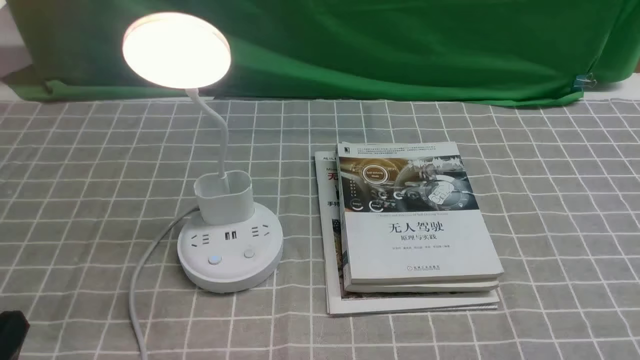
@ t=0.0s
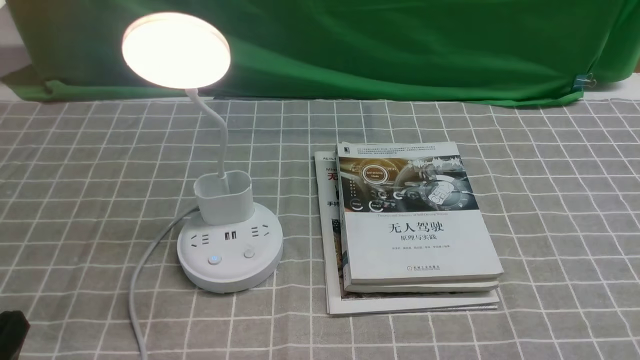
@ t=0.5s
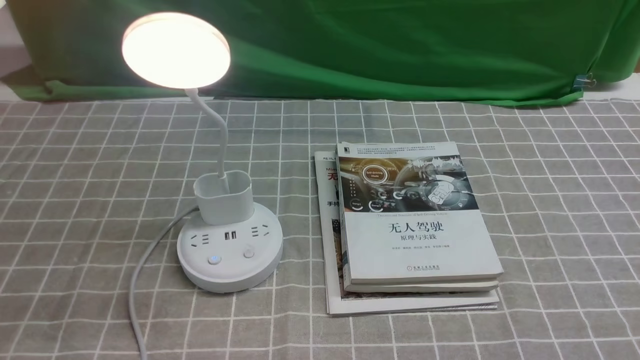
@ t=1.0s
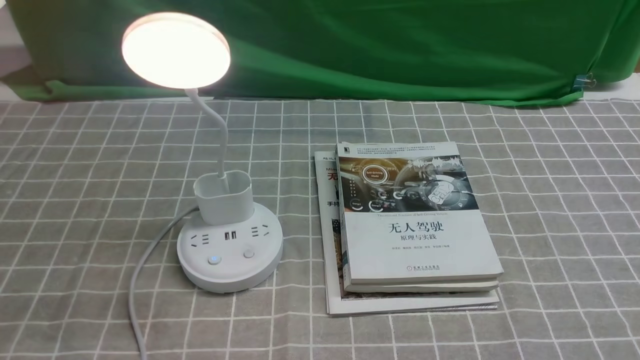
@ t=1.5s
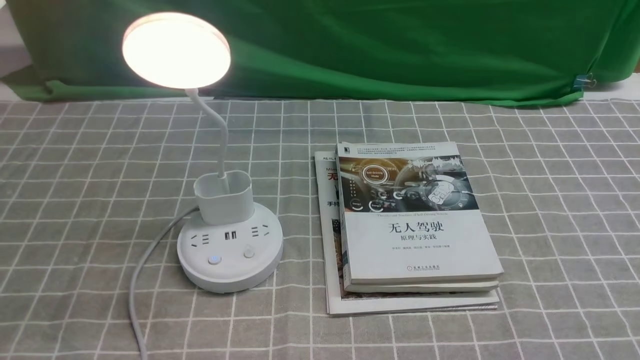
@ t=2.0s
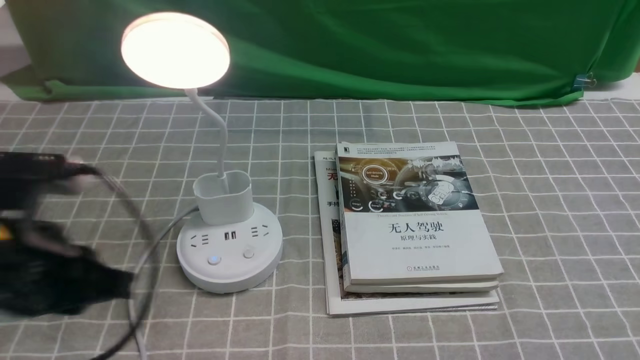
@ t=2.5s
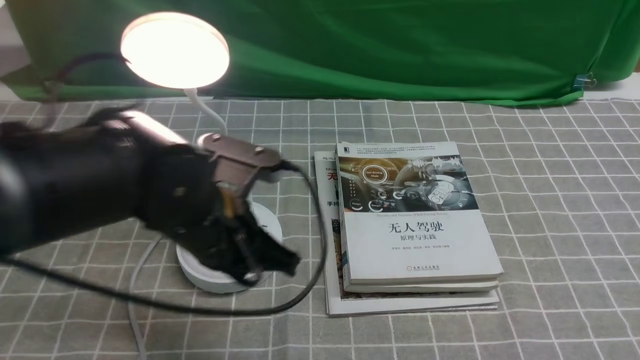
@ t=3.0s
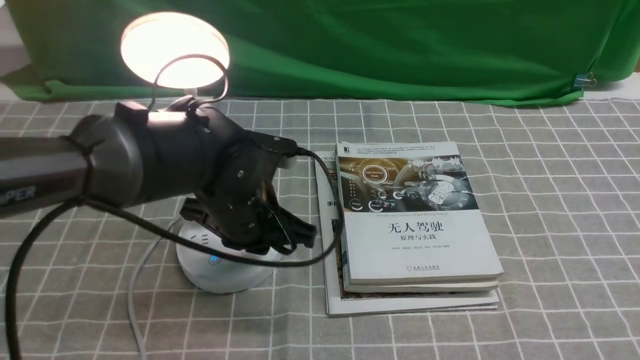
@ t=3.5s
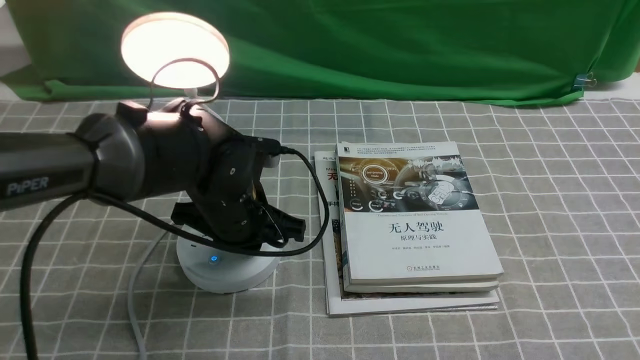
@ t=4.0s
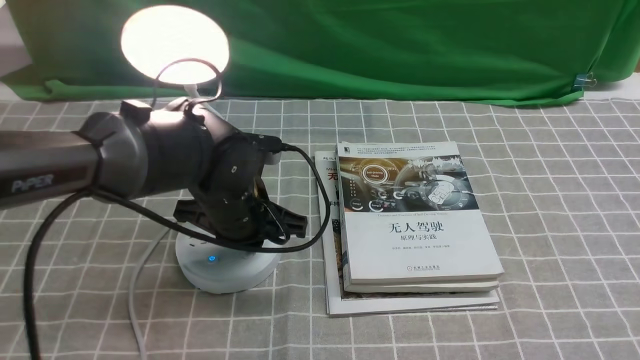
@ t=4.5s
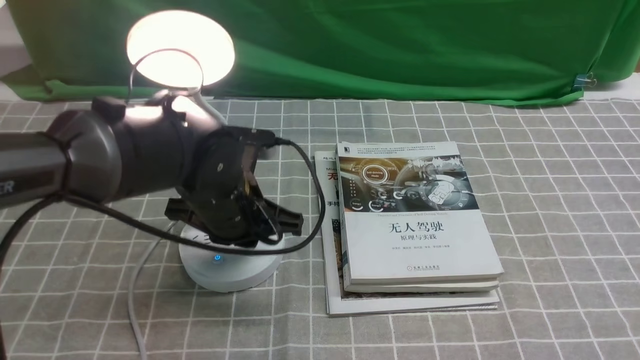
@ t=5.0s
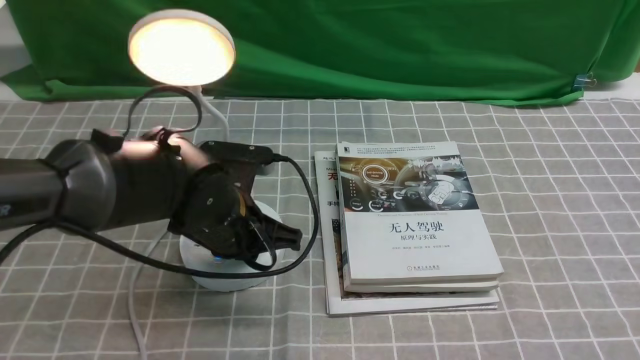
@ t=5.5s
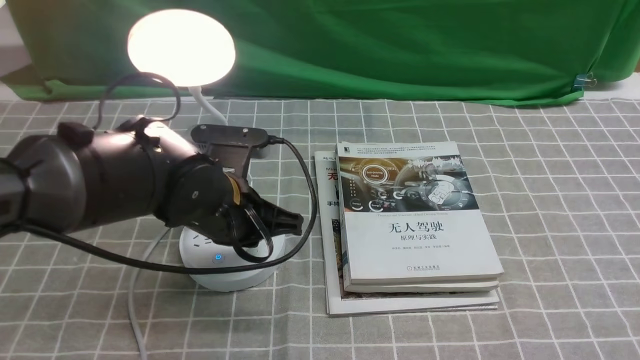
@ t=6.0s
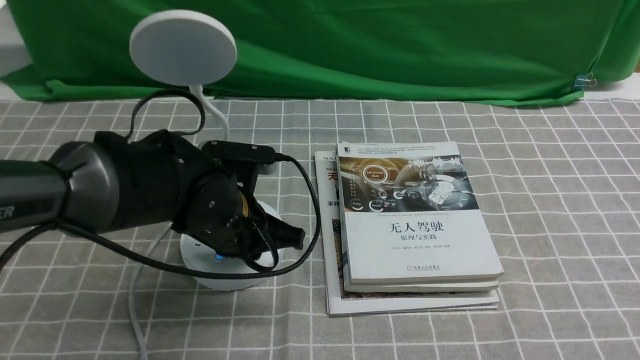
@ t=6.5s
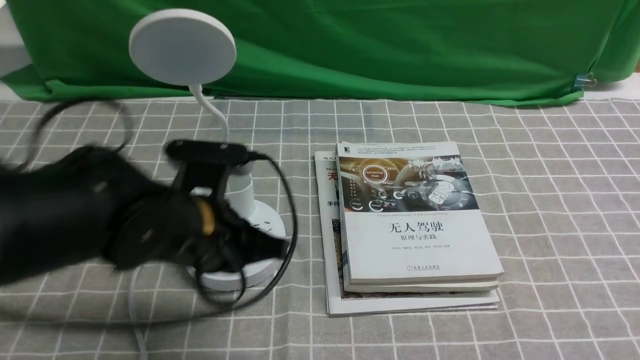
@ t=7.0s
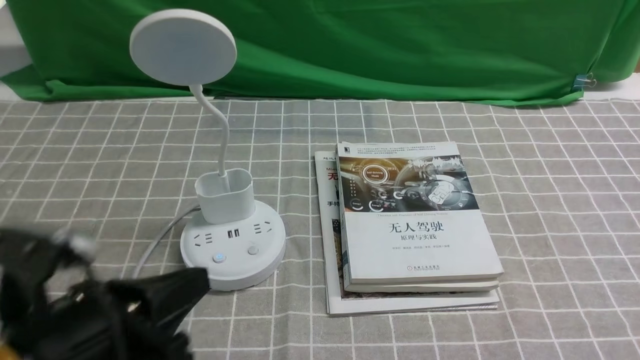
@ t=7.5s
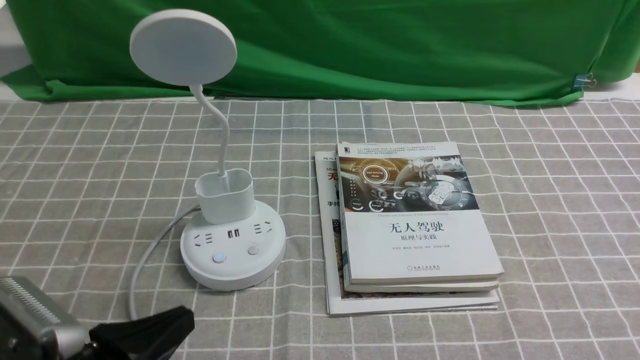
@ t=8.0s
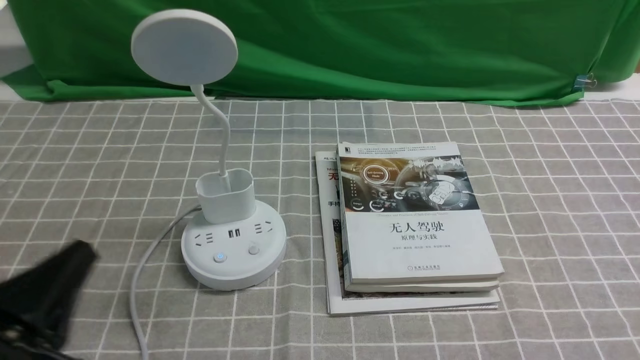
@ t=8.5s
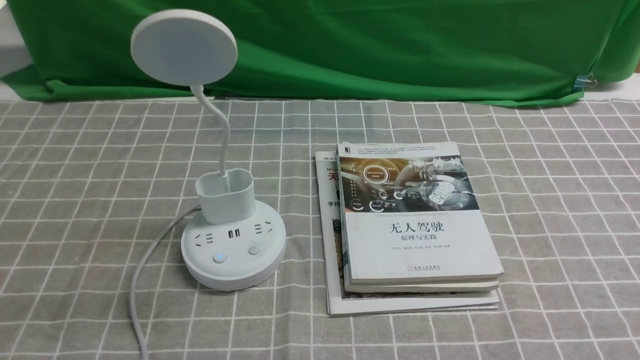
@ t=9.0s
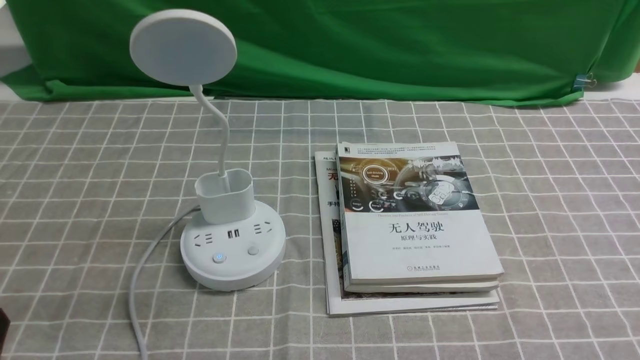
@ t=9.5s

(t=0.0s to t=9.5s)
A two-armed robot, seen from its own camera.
Task of the whole recording: turn off the desk lamp on the grey coffee tablecloth by hand.
Step, t=0.0s - t=6.5s: use the left arm to press the button switch on the lamp holder.
t=2.0s - t=4.0s: The left gripper goes approximately 30 cm forward and to the right, and closes its fingers.
t=5.5s - t=7.5s: The left gripper travels backward and to the left by about 20 cm.
t=7.5s - t=9.5s: The left gripper heads to the left and backward, covering about 15 cm, and opens up.

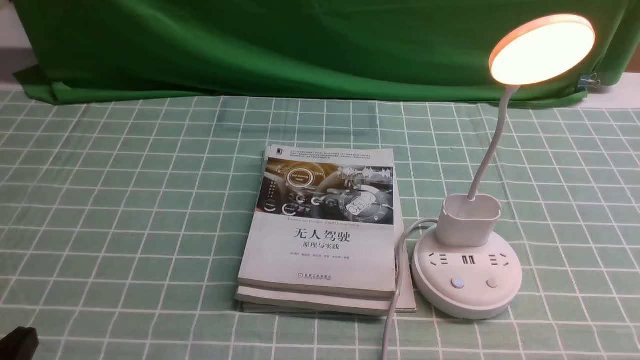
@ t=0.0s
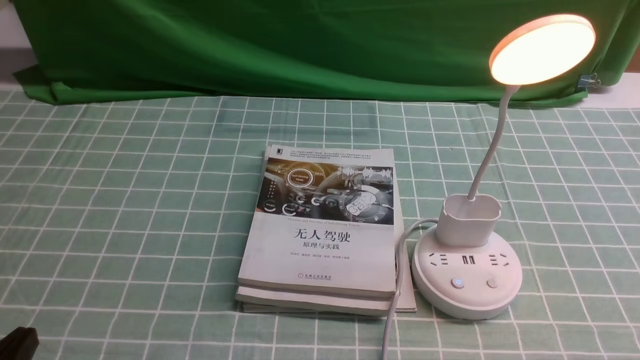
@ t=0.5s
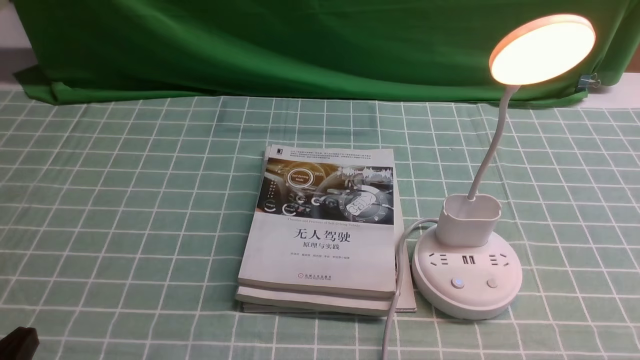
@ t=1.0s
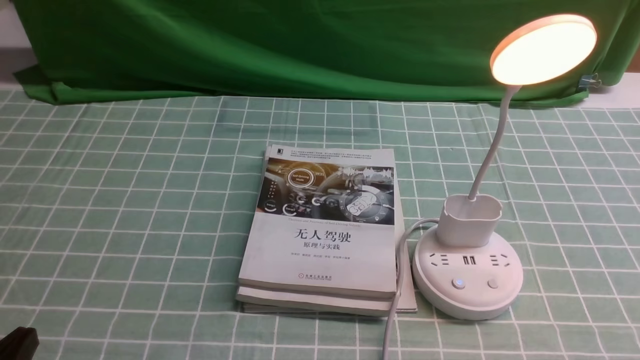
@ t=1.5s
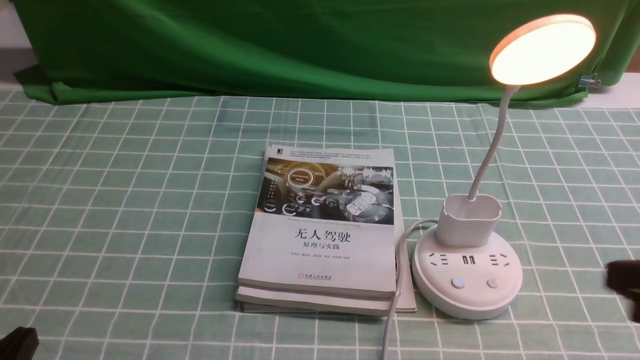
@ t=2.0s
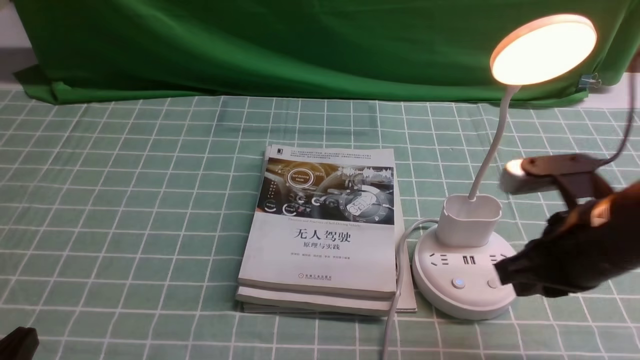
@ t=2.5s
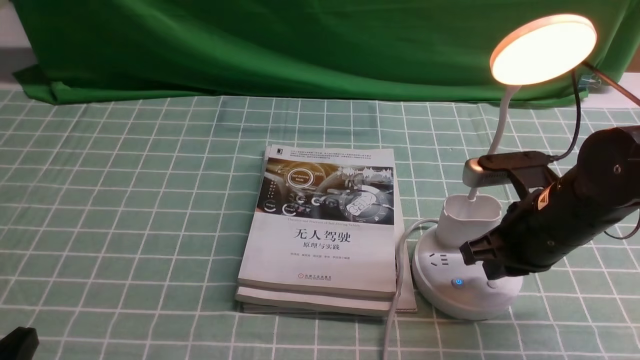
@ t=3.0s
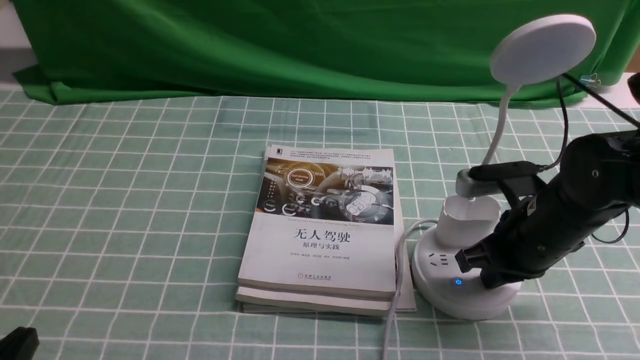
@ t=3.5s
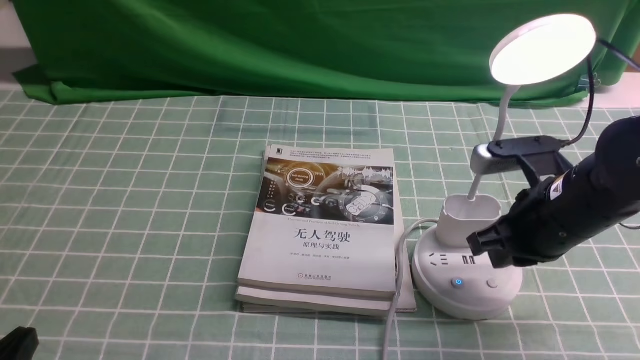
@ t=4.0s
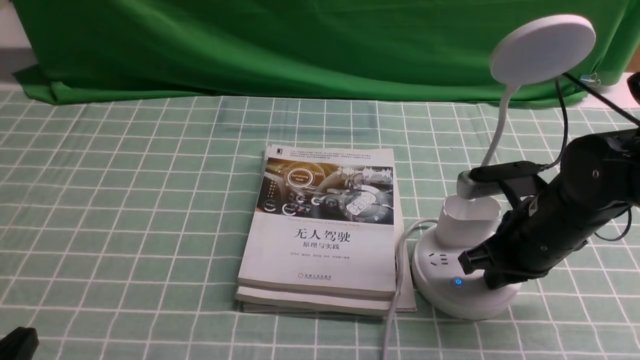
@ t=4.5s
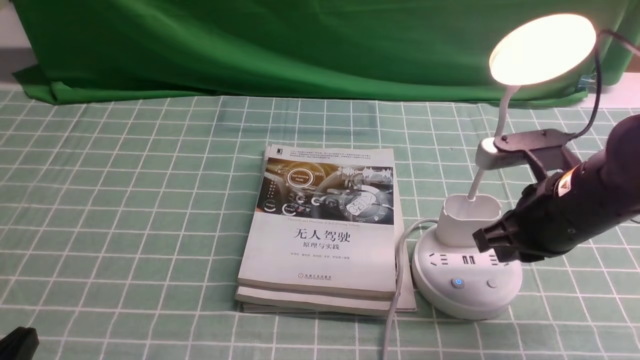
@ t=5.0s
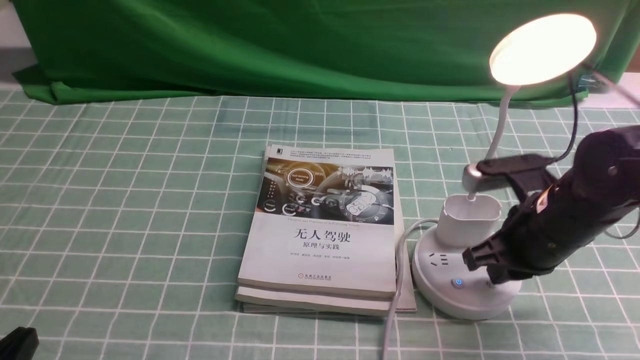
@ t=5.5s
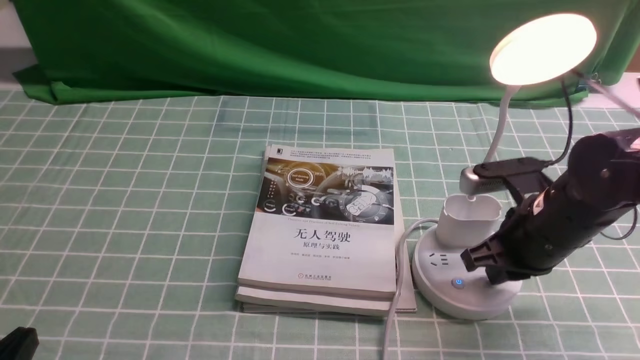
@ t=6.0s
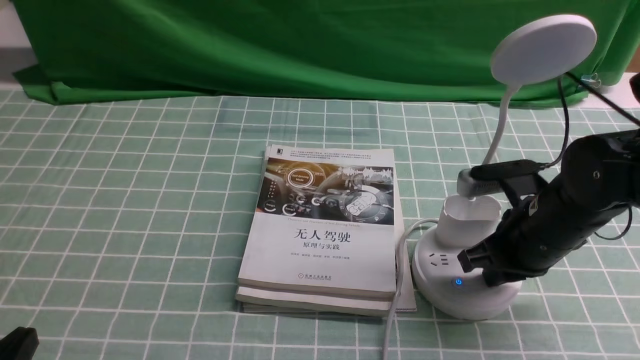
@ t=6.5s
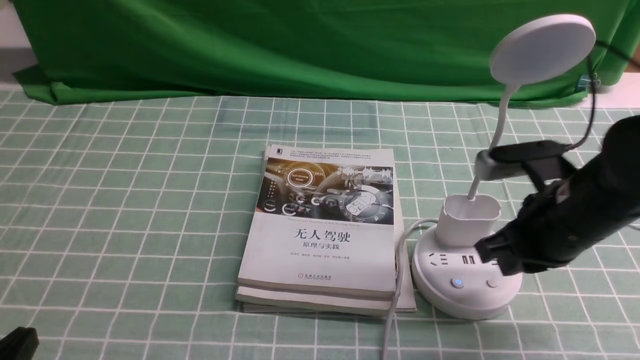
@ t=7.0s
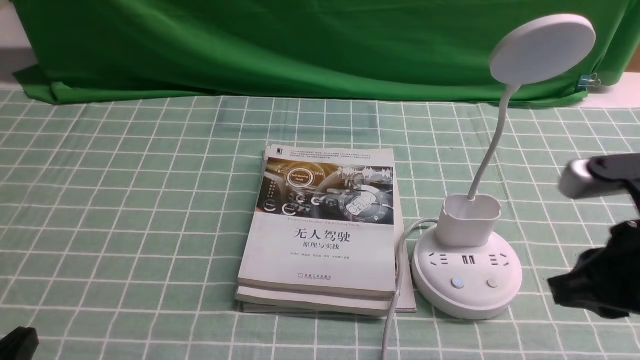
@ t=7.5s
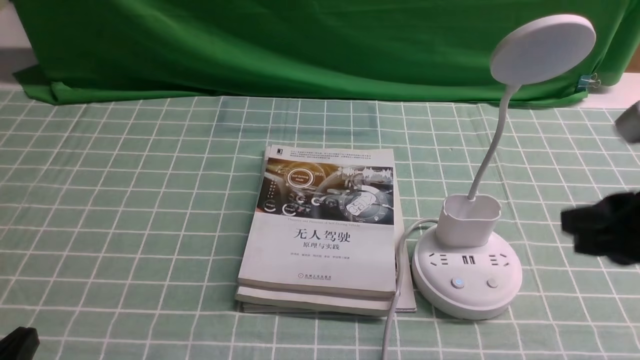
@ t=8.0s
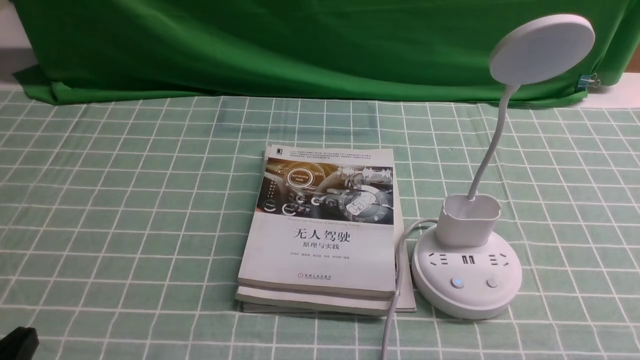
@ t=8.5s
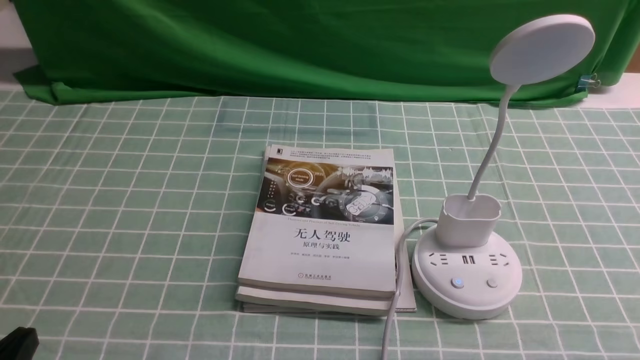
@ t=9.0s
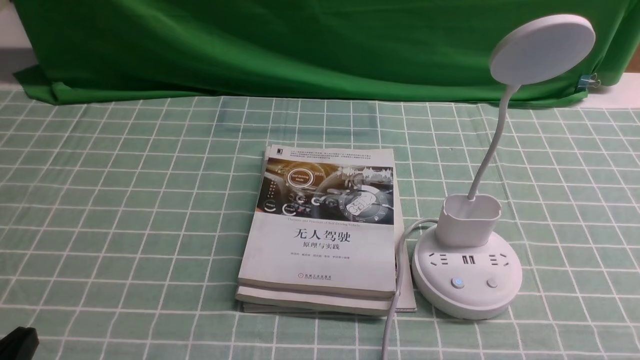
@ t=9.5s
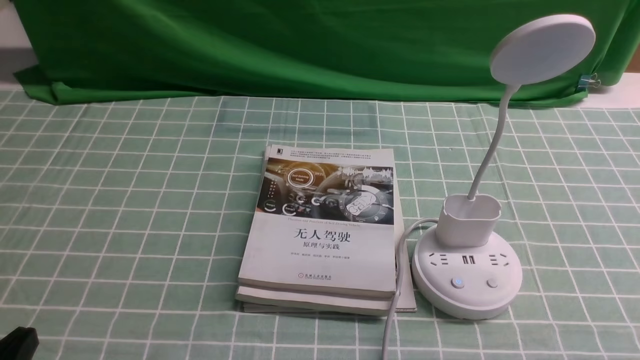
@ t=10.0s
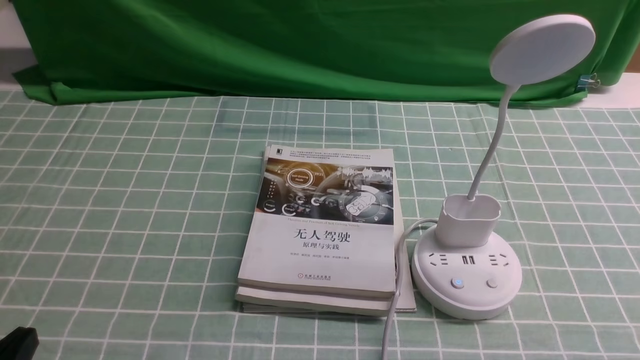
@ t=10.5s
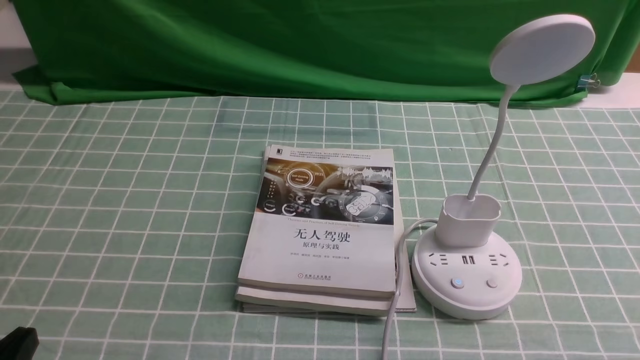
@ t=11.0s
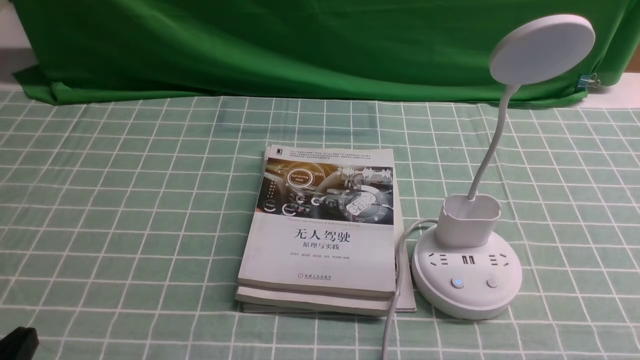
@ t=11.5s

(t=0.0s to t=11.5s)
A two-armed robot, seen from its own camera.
Task of the whole recording: turn off the desk lamp on the blue coffee tablecloth by hand.
Step, t=0.0s - t=6.5s: use the right arm to press the button switch on the lamp holder.
t=0.0s - t=2.0s: The right gripper shifts some 15 cm upward and forward, and closes its fingers.
t=2.0s - t=4.0s: The right gripper shifts roughly 20 cm forward, downward and to the left.
t=4.0s - t=6.0s: There are only small adjustments of the grippers.
t=6.0s - t=7.5s: The right gripper is displaced backward and upward by about 15 cm.
t=7.5s - t=9.5s: The right gripper travels backward, downward and to the right by roughly 20 cm.
